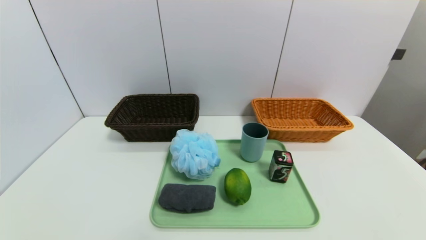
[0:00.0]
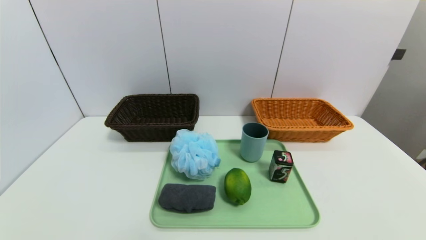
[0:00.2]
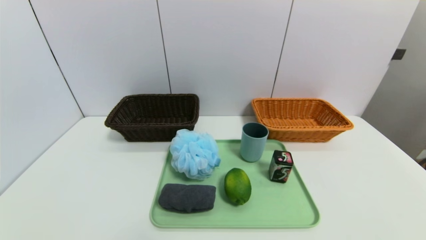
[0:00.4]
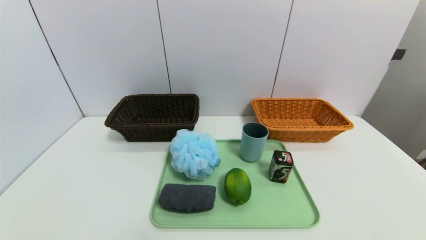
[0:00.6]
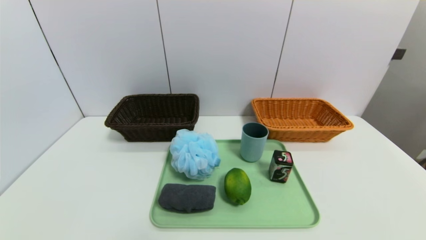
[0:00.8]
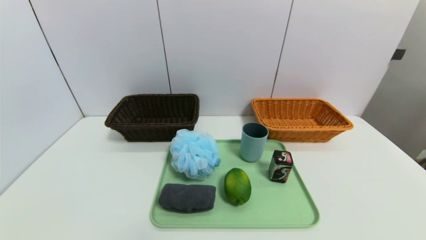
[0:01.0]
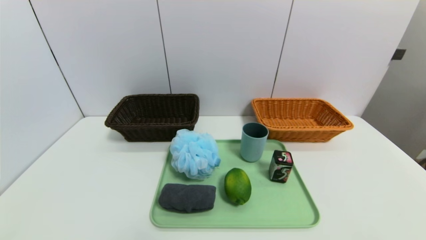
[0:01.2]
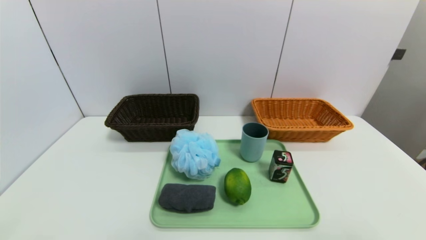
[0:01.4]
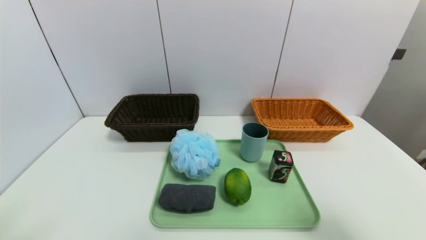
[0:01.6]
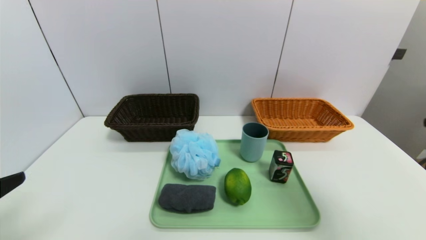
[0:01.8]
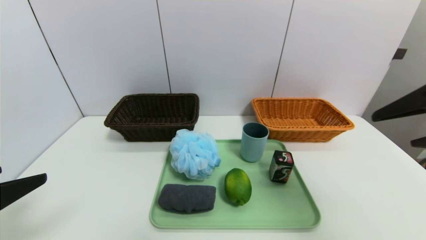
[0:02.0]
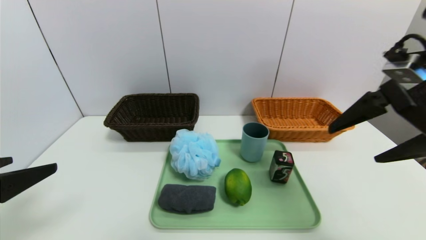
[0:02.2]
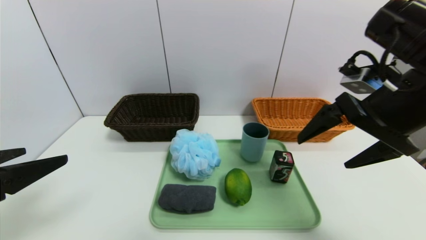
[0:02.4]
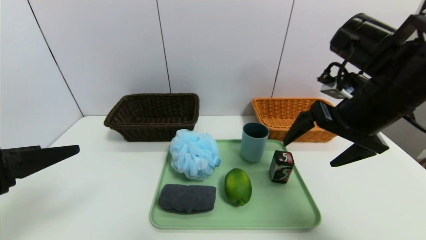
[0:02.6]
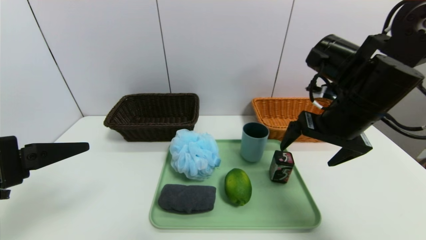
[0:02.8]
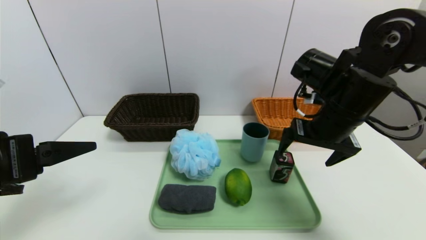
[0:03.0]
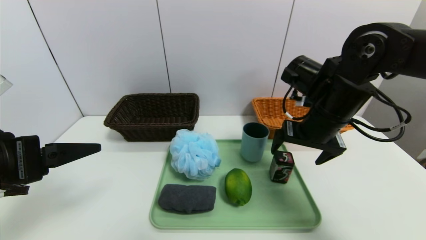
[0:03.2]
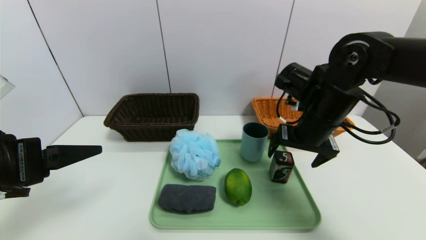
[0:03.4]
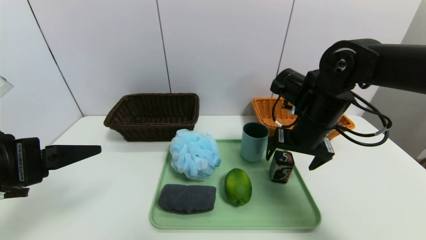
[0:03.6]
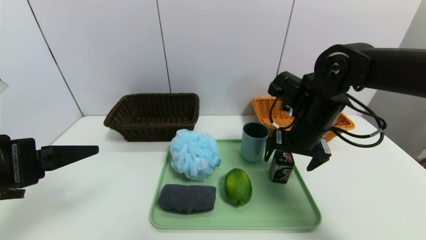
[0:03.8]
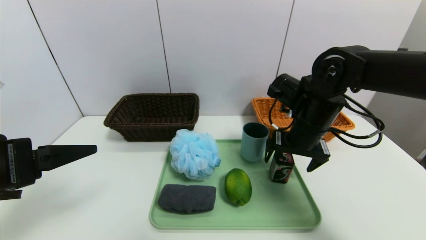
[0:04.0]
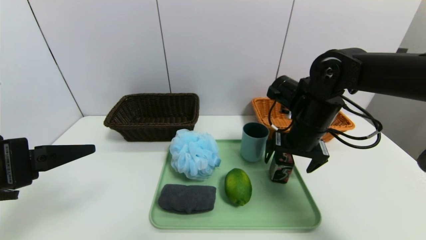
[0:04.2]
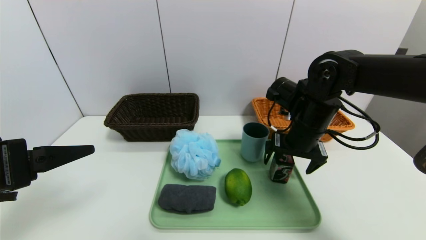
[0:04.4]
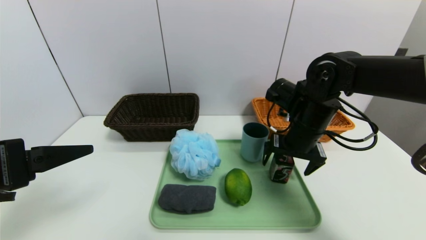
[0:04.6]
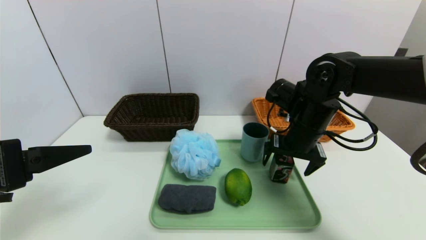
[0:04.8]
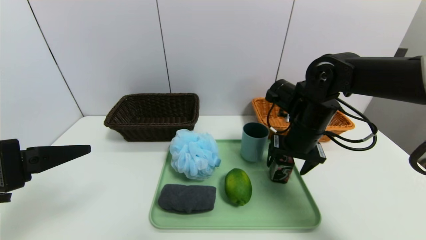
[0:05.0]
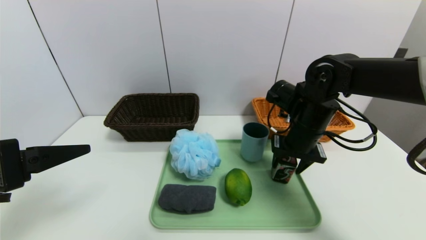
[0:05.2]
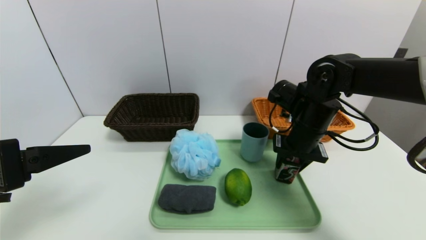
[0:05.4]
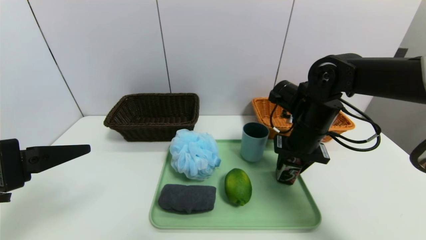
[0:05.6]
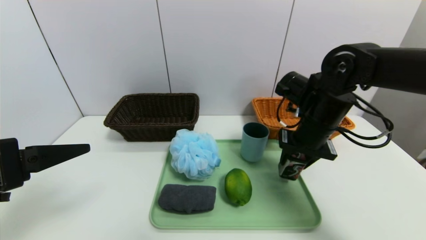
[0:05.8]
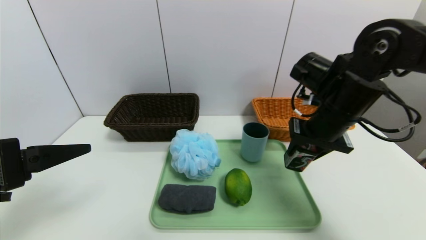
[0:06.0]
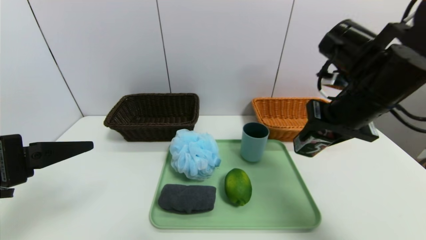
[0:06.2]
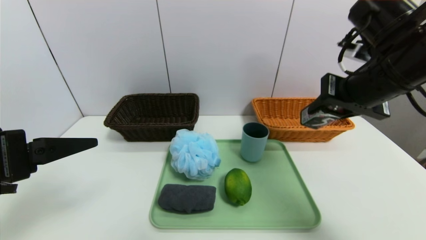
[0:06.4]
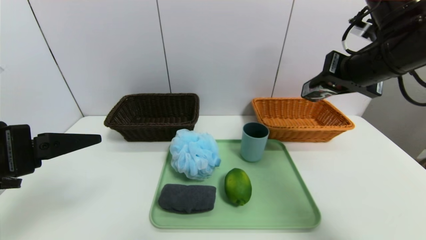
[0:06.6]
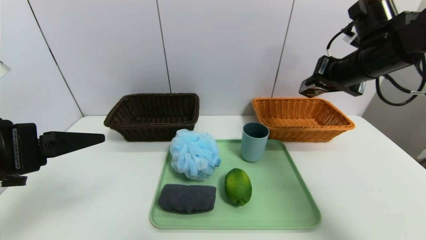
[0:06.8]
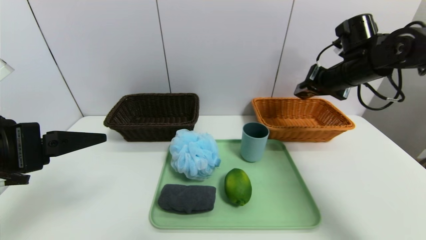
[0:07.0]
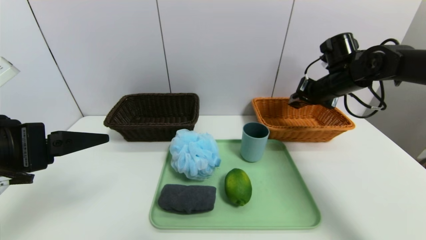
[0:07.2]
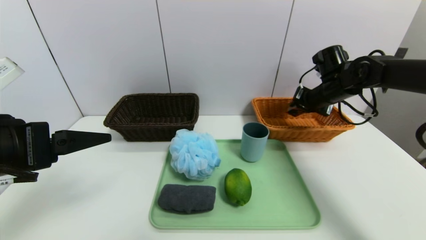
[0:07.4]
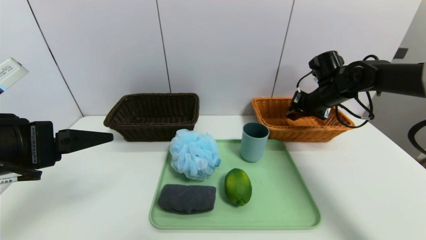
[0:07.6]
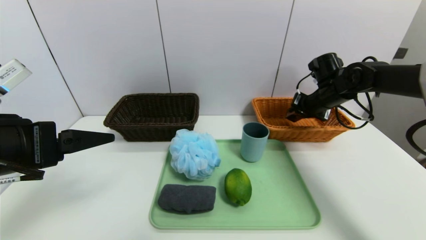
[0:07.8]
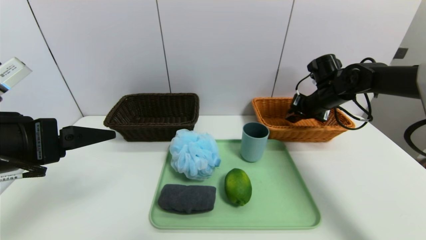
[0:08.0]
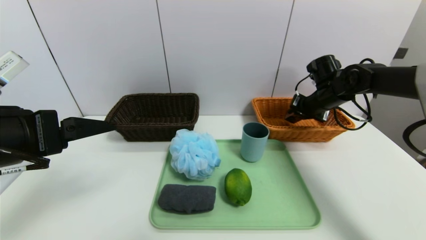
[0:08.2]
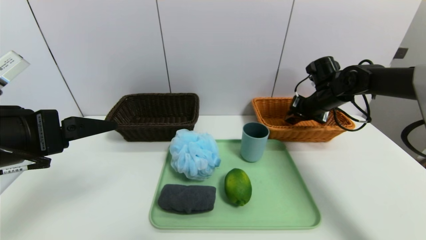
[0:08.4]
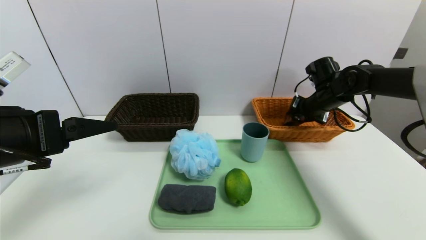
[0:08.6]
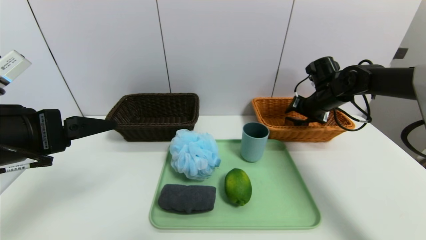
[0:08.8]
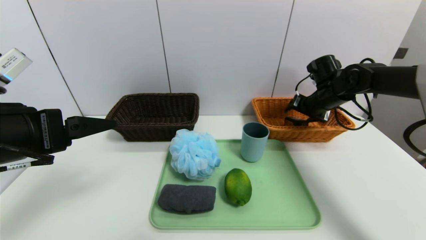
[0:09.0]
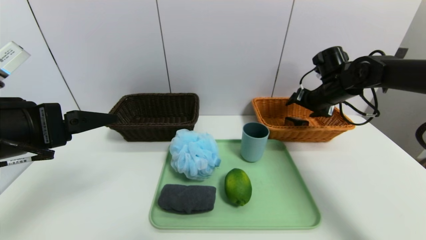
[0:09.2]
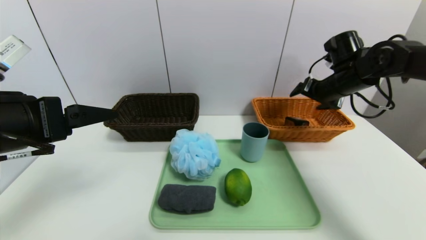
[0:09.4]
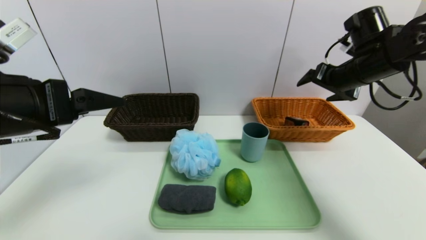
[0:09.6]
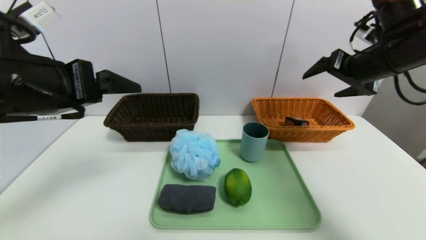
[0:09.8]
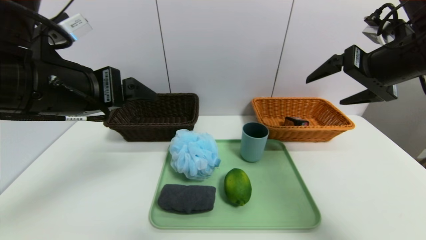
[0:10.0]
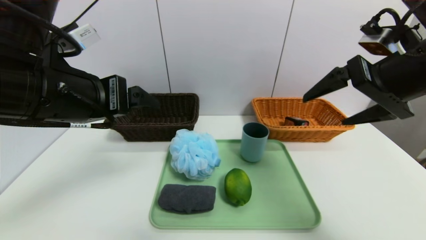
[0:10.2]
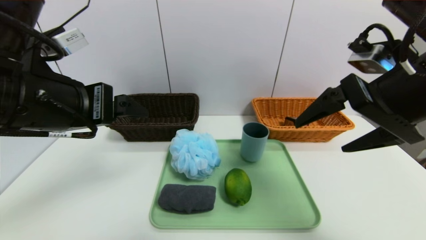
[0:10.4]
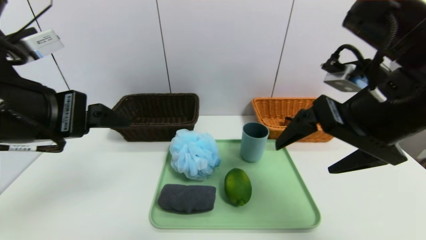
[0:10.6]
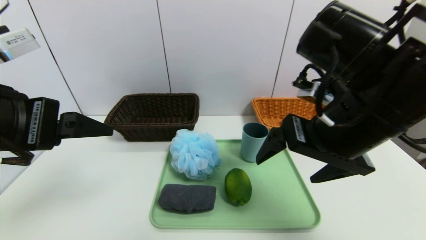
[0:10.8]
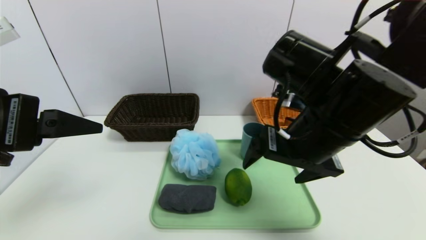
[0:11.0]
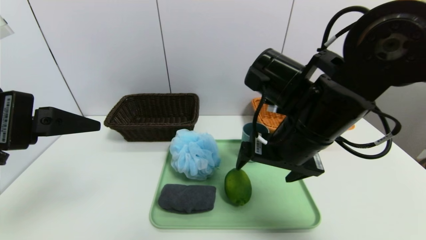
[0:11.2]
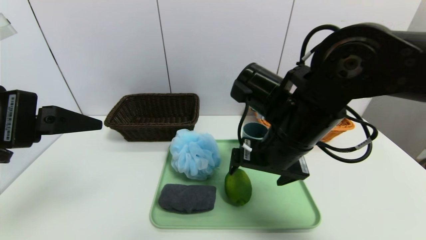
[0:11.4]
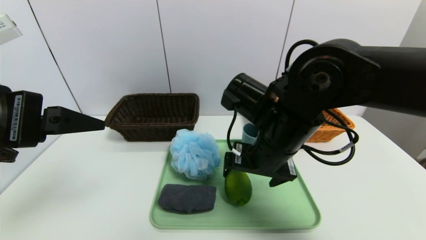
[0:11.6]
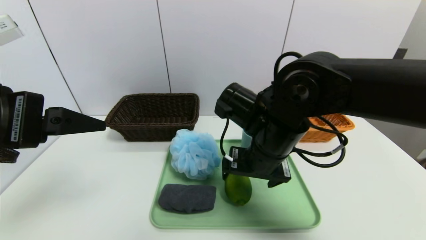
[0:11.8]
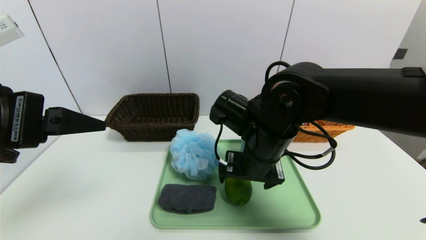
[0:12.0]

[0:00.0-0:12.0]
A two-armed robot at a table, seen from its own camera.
Task of the whole recording: place the food in the right basket with the right gripper, and place the non food items in the left basket with the left gripper.
Step, 0:00.0 to 0:09.2: Grasp the square chewing gum and put it in the right basket.
0:00.0 to 0:01.6: The right gripper is displaced upward by roughly 25 cm.
0:01.6 to 0:03.0: The left gripper moves forward, some 10 cm, while the right gripper travels forward and to the left by some 25 cm.
0:03.0 to 0:04.4: The right gripper heads downward, covering some 5 cm.
0:04.4 to 0:06.0: The right gripper ends up some 5 cm from where it was, and closes up.
0:06.0 to 0:07.6: The right gripper travels forward and to the right by some 15 cm.
0:07.6 to 0:09.0: The right gripper opens.
0:09.0 to 0:10.4: The left gripper goes about 5 cm to the right, while the right gripper shifts about 30 cm backward and upward.
0:10.4 to 0:12.0: The right gripper goes about 20 cm to the left, downward and forward. The left gripper shifts roughly 5 cm backward.

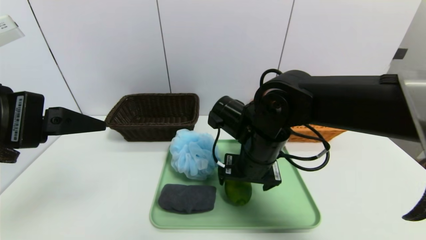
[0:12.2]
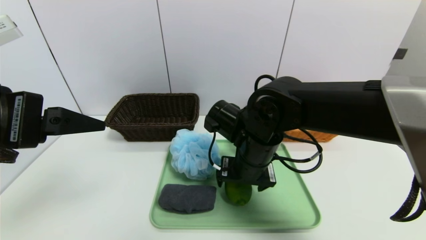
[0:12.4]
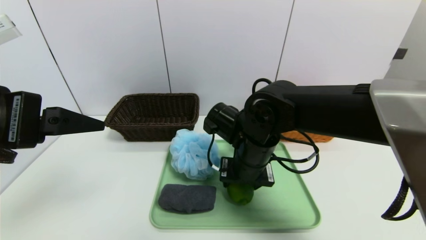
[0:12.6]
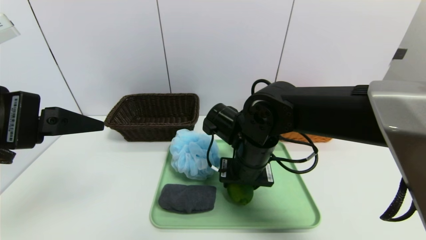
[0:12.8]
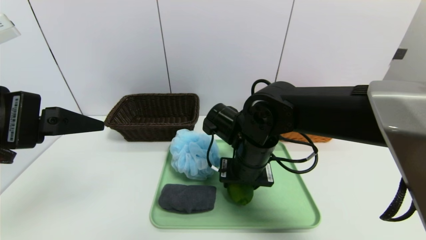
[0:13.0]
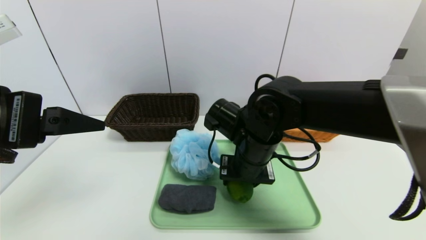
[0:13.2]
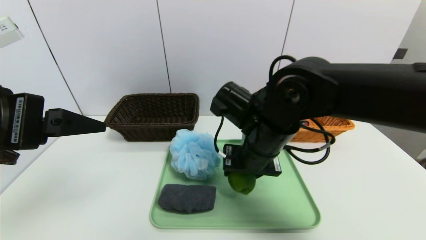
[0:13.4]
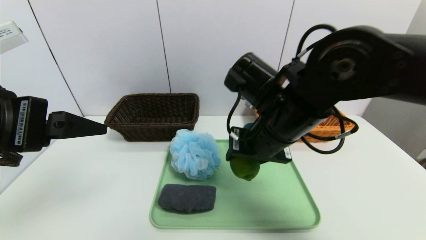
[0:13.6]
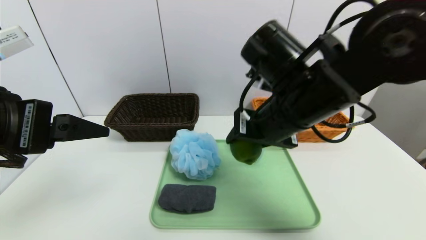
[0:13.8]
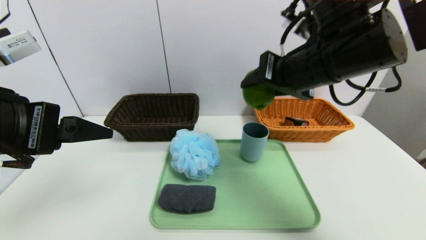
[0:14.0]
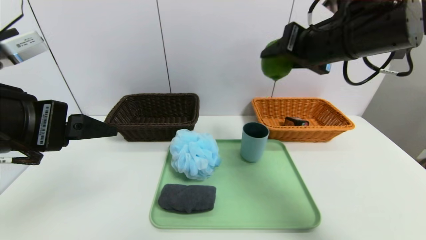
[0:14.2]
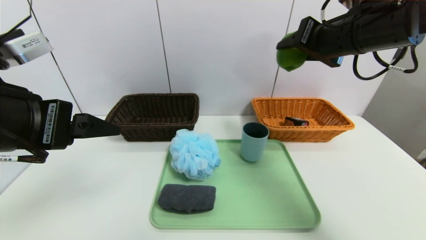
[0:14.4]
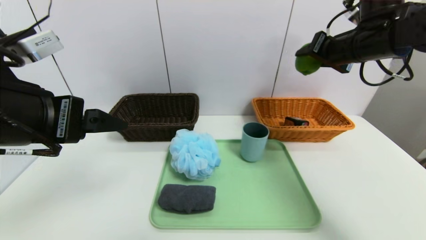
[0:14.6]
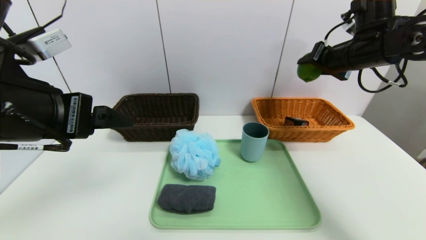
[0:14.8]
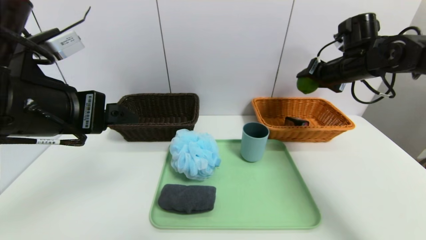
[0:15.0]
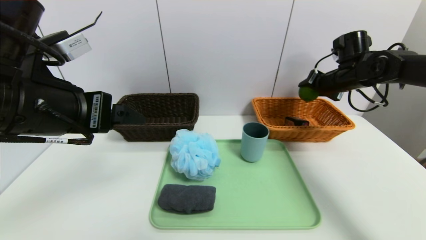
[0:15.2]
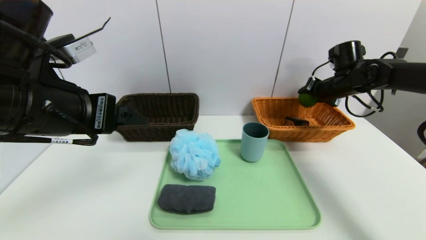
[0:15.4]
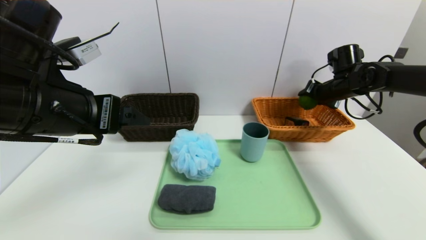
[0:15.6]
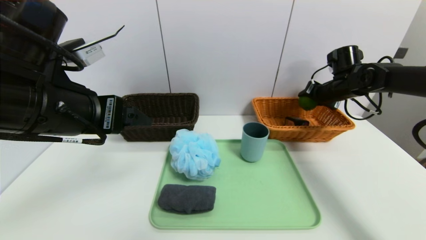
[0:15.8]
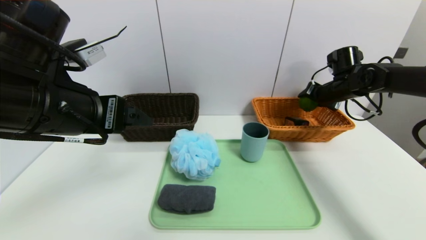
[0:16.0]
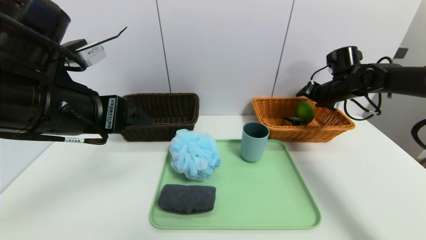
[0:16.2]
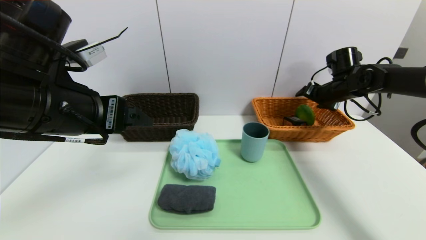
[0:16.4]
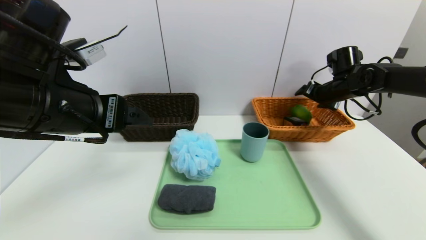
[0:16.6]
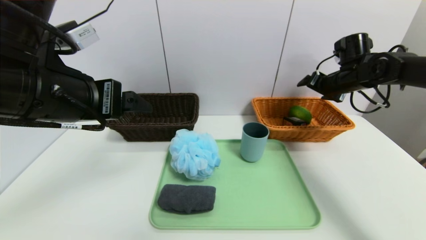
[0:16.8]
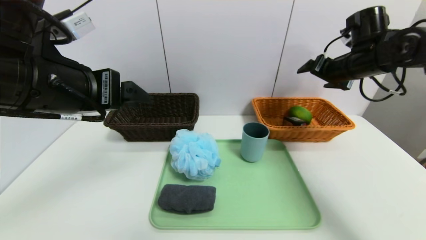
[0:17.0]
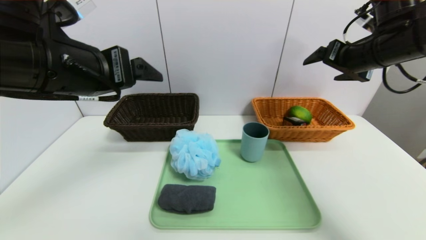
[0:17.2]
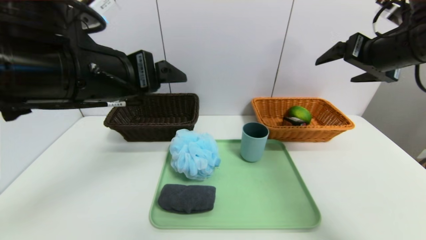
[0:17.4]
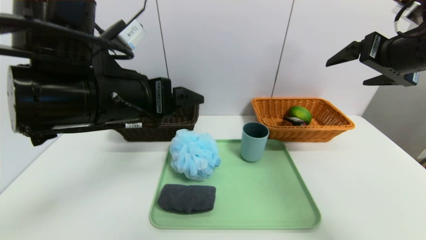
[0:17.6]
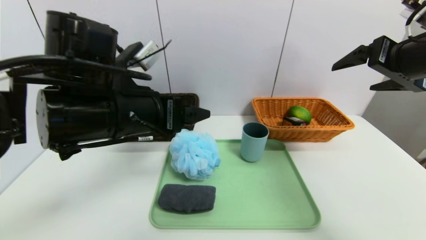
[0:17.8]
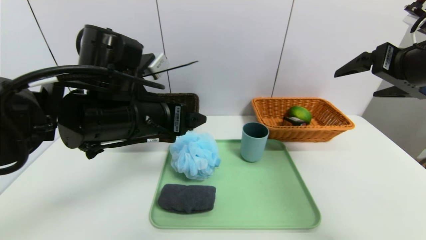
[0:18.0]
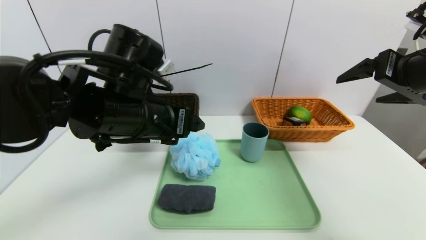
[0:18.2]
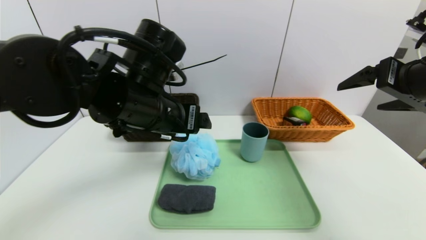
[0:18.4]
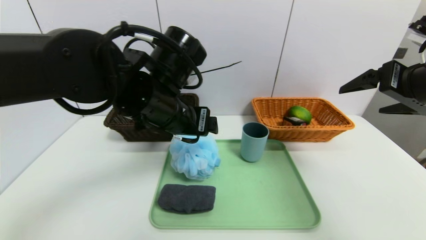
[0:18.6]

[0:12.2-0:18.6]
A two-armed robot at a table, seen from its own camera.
Task of the whole recording: place the food in the right basket with the right gripper, and place the non food items in the left basket with the left gripper.
Step, 0:12.2 to 0:16.6: Grasp the lime and put it in the right basket.
0:12.2 to 0:13.8: The right gripper heads upward, covering some 10 cm, and closes up.
0:13.8 to 0:15.4: The right gripper moves to the right and forward, approximately 30 cm. The left gripper moves forward, about 5 cm.
0:15.4 to 0:17.0: The right gripper heads upward and backward, covering approximately 10 cm, and opens up.
0:17.0 to 0:18.6: The left gripper shifts approximately 15 cm to the right, downward and forward; the right gripper moves backward, some 15 cm.
